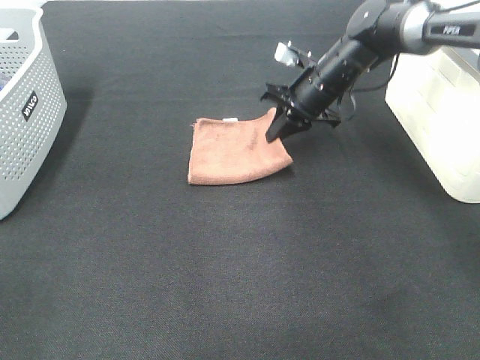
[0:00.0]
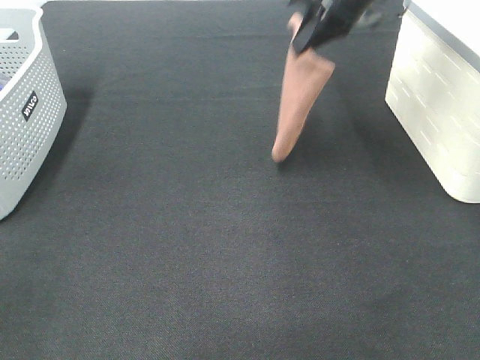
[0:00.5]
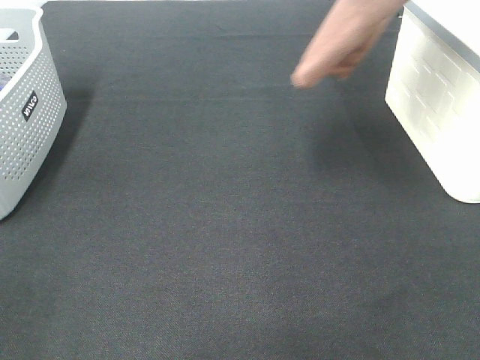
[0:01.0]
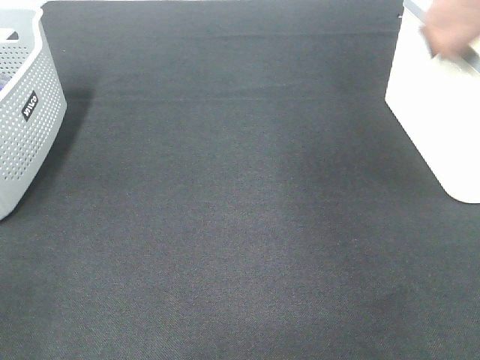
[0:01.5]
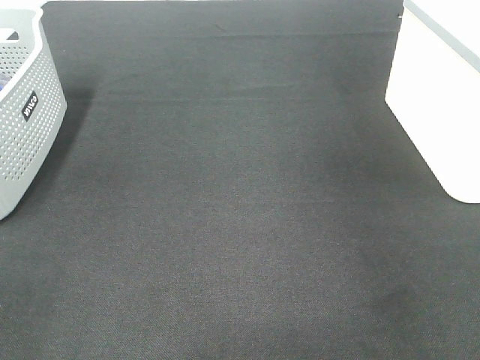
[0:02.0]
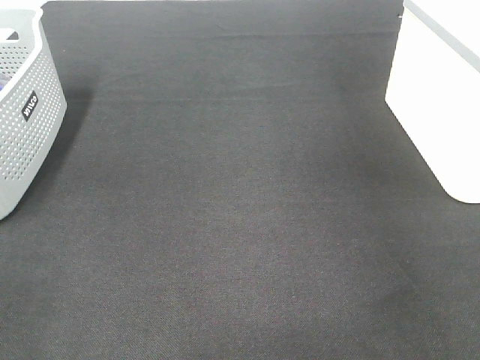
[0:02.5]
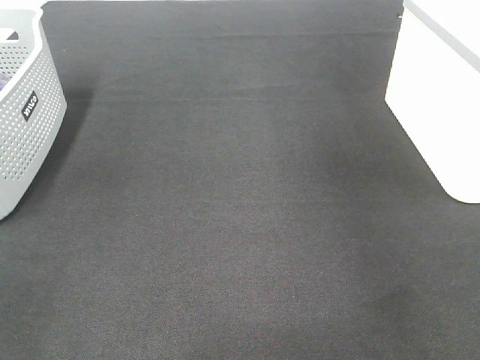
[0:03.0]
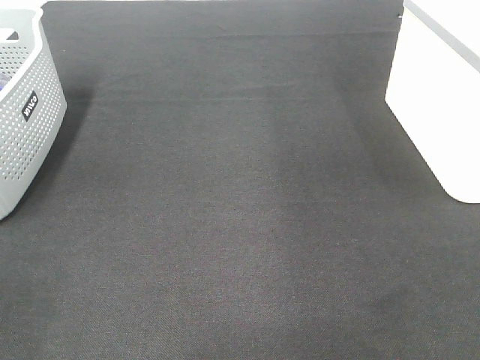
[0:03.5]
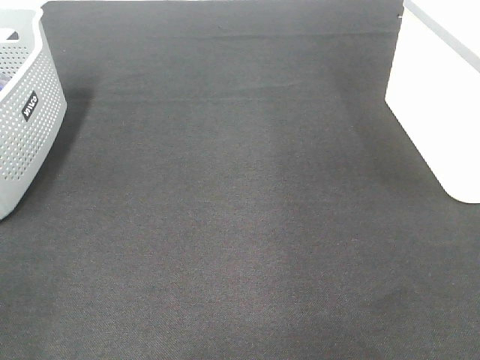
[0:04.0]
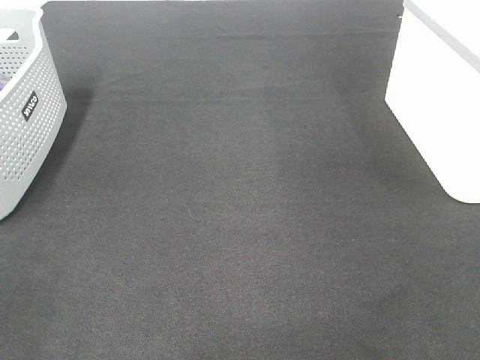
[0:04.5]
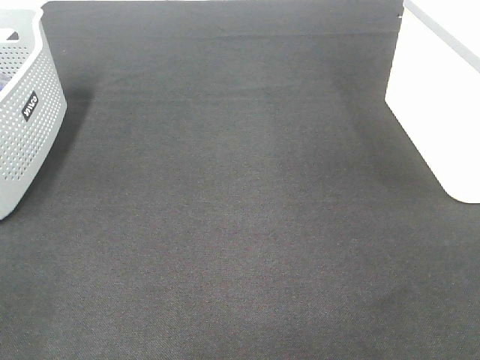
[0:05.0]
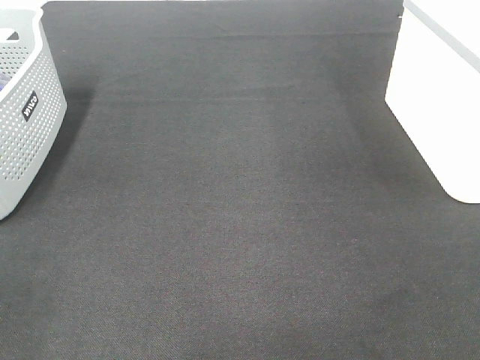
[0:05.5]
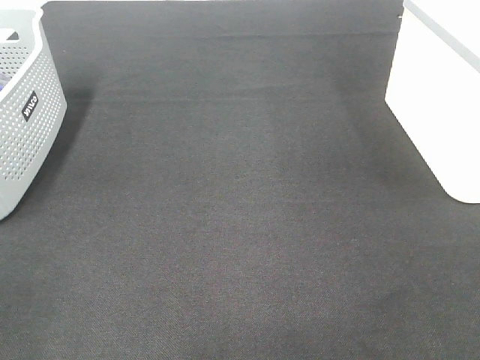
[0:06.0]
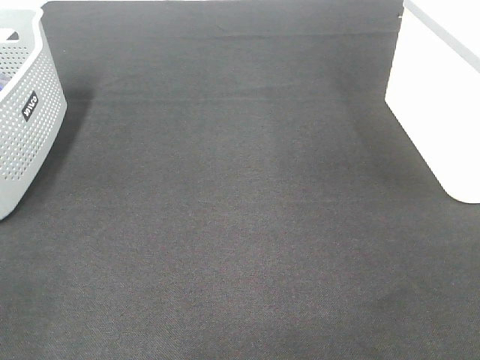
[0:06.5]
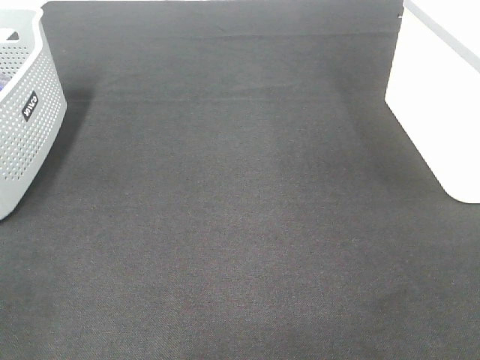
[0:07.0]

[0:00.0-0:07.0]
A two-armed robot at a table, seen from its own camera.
Step, 0:00.5 to 0:02.5: Right hand: place the brown towel in right basket.
0:00.0 to 0:02.0: The right gripper heads upward and to the right, covering approximately 35 cm.
0:05.0 to 0:07.0: Neither gripper changes place.

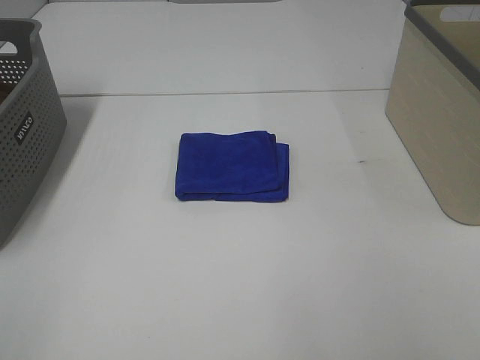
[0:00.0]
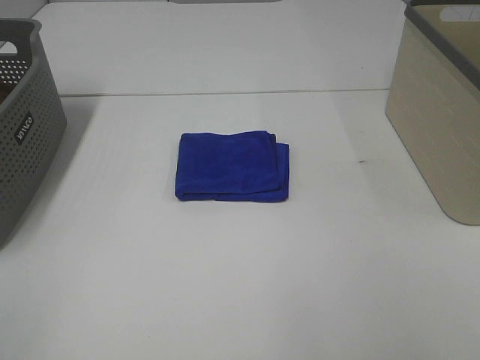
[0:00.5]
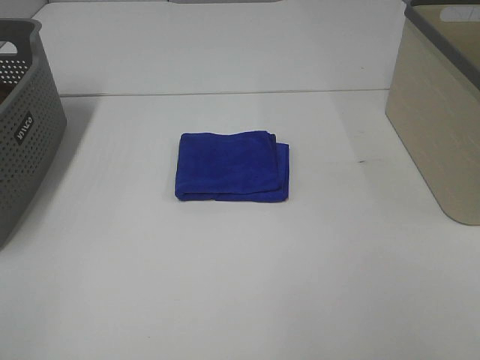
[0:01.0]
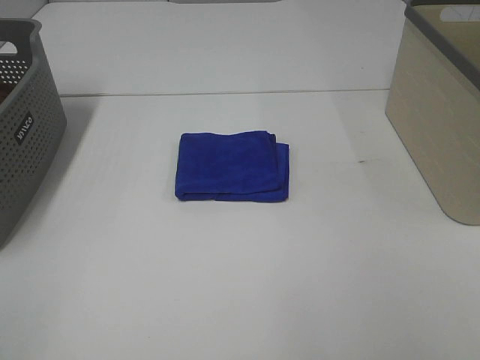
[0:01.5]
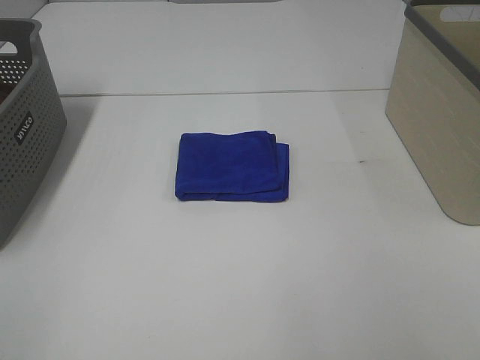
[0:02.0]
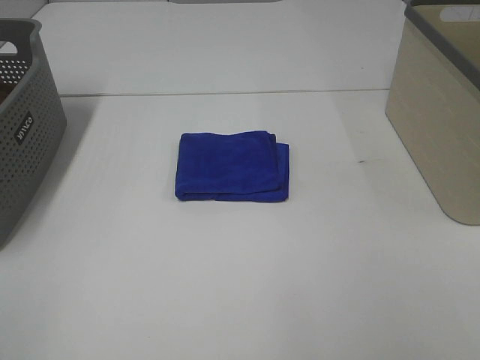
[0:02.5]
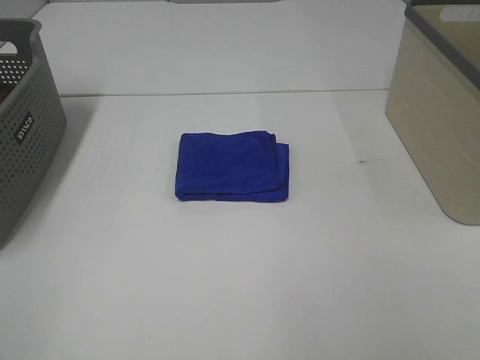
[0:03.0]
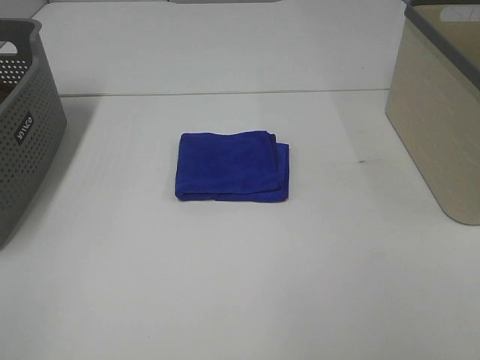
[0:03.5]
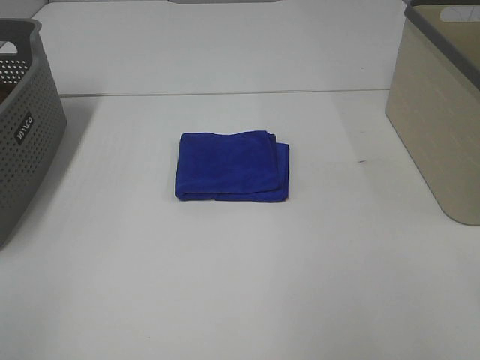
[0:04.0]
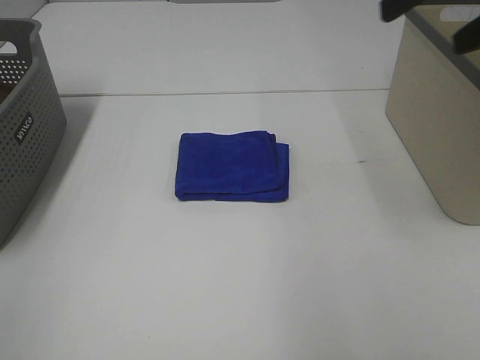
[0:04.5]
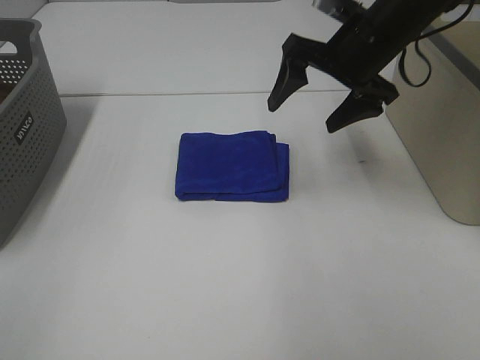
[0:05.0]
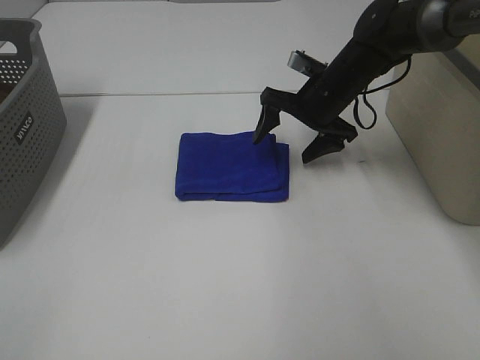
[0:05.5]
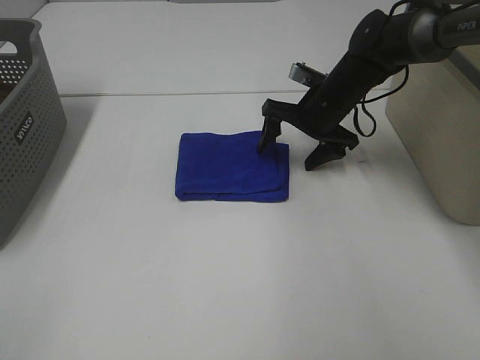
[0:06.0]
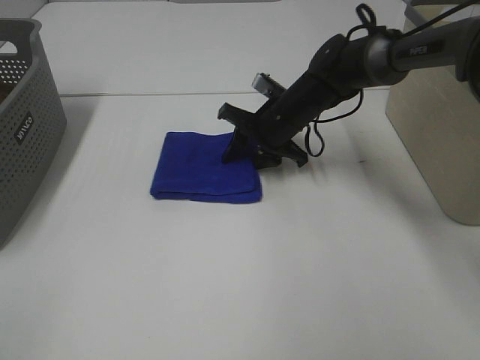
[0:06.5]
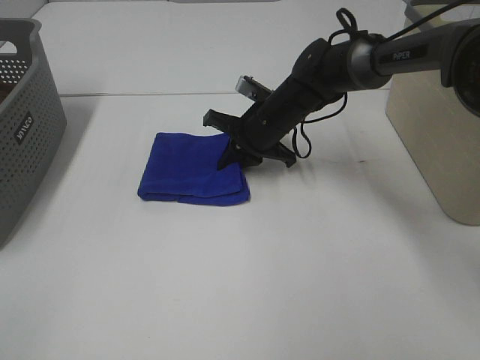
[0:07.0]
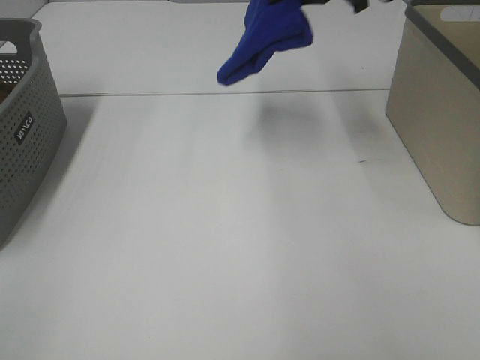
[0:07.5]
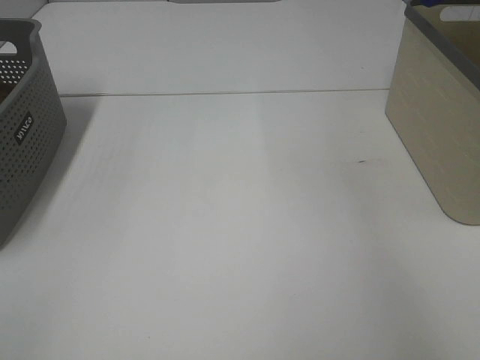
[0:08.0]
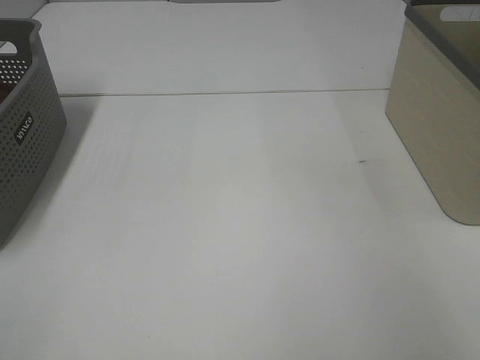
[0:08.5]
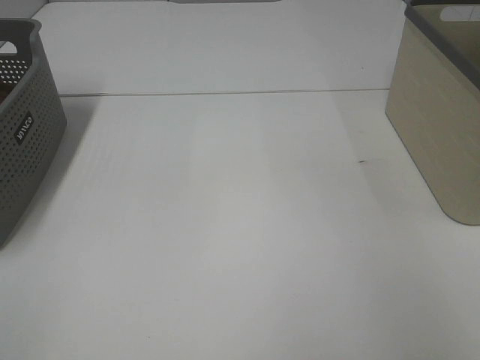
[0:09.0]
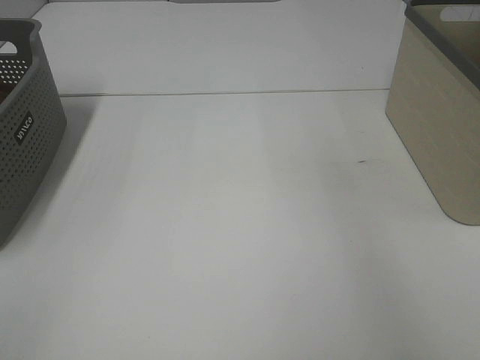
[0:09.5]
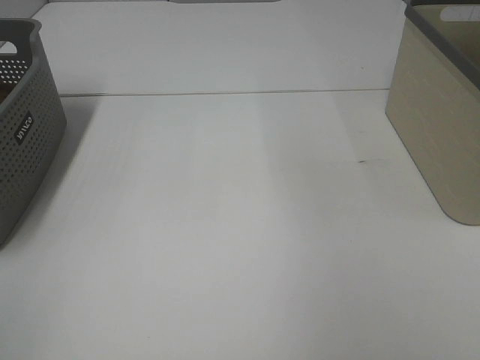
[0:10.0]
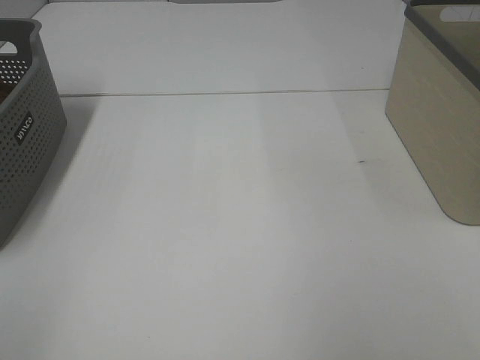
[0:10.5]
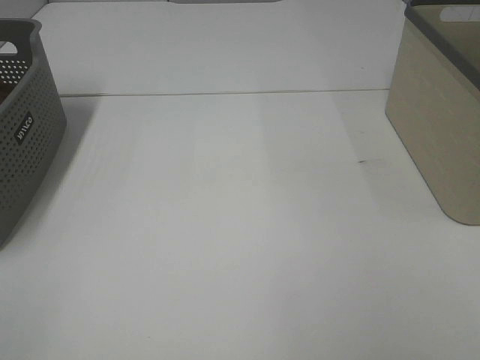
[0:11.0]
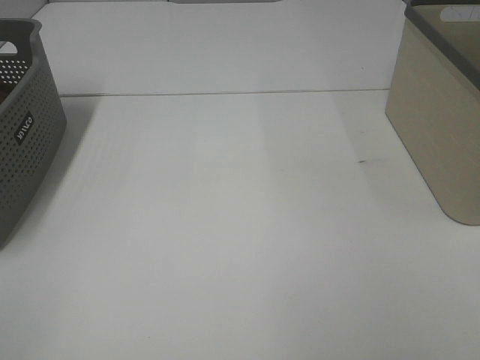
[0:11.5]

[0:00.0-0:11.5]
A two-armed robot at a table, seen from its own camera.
Step, 0:00.0 to 0:06.5: Right hand: grab the folded blue towel.
Step, 0:07.0 to 0:09.0: Right hand: place the blue towel in right basket.
0:04.0 to 0:06.0: The right gripper travels forward, downward and to the left by roughly 50 cm.
0:06.0 to 0:07.5: The right gripper moves upward, some 25 cm, and closes its fingers.
0:07.5 to 0:09.5: The right gripper heads to the right, covering some 20 cm, and opens its fingers.

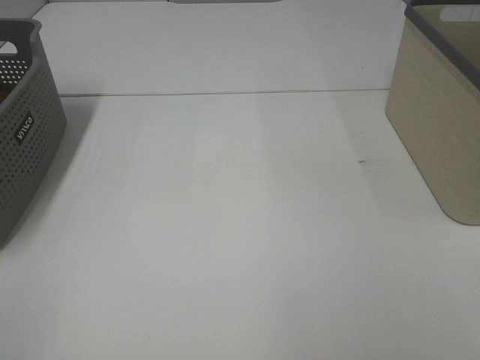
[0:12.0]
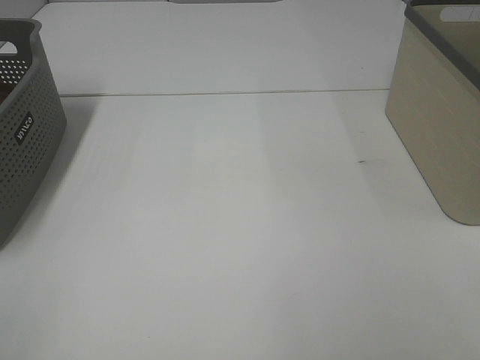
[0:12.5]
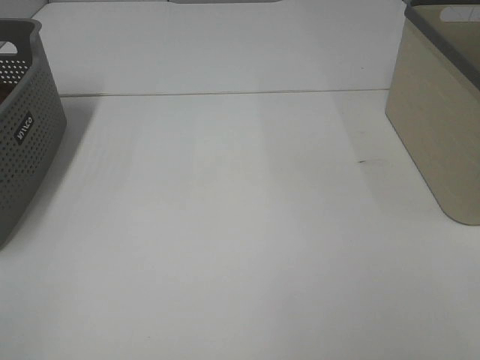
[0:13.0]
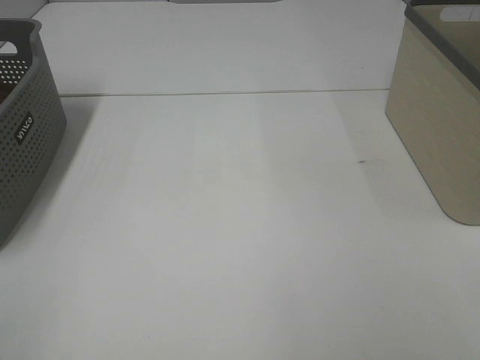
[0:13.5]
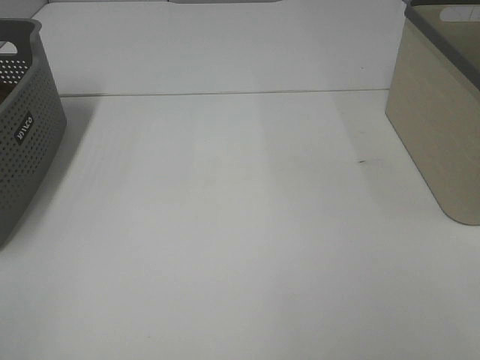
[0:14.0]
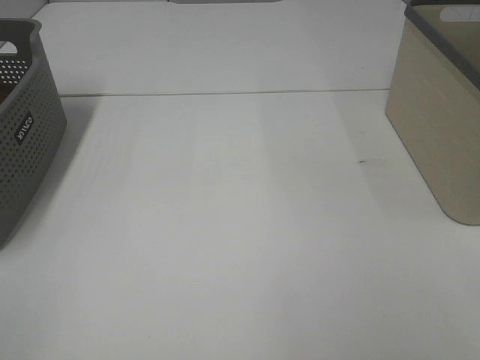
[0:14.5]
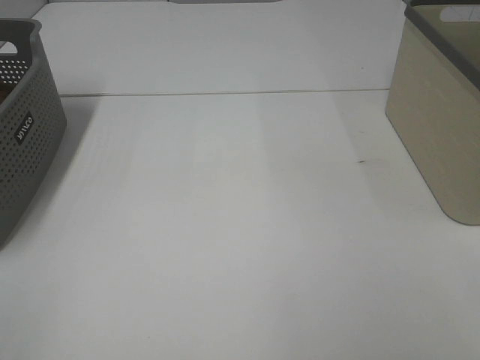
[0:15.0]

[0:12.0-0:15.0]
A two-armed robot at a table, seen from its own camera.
0:12.0 to 0:15.0: The two grippers keep their place.

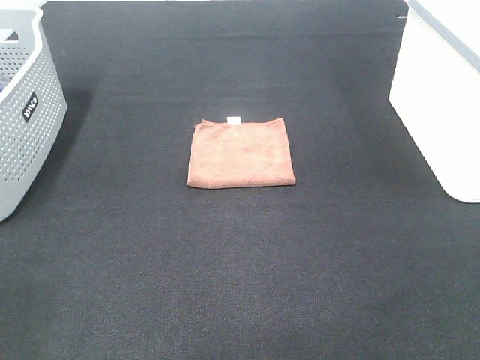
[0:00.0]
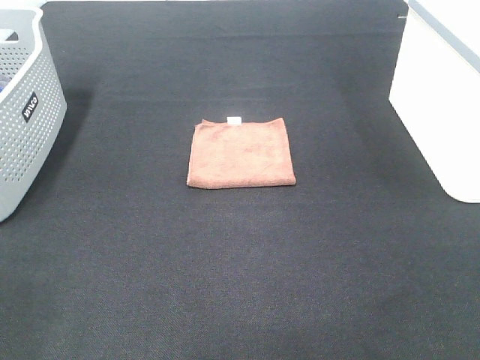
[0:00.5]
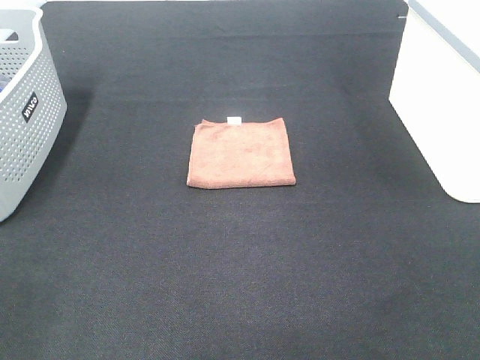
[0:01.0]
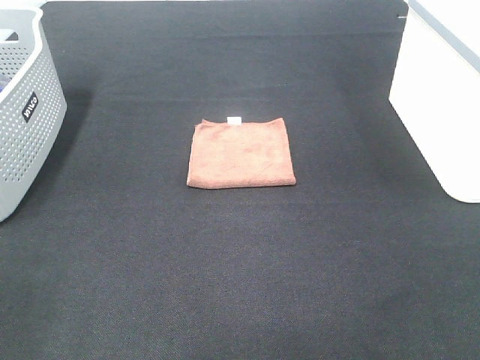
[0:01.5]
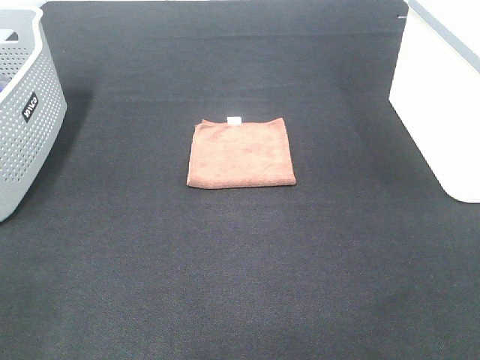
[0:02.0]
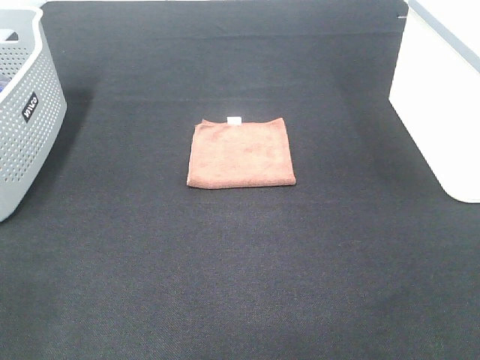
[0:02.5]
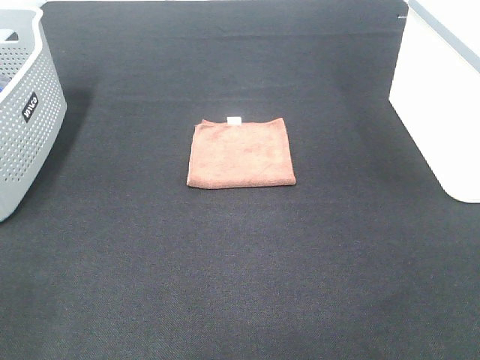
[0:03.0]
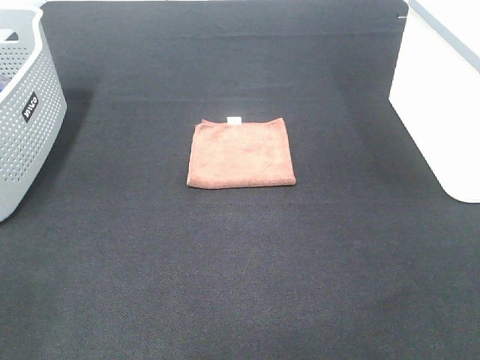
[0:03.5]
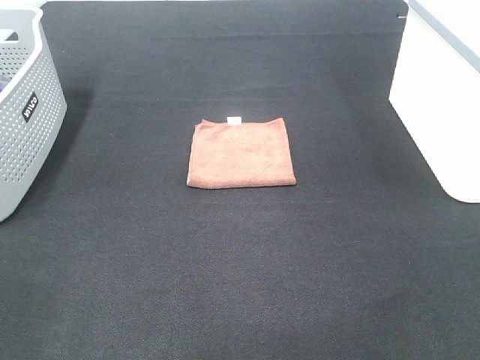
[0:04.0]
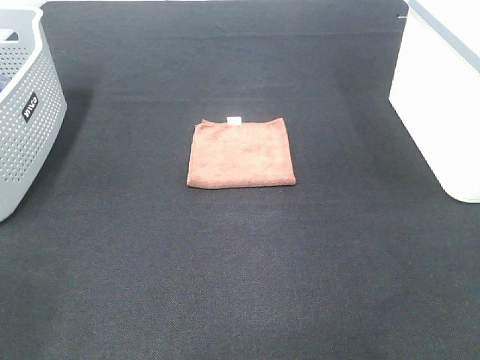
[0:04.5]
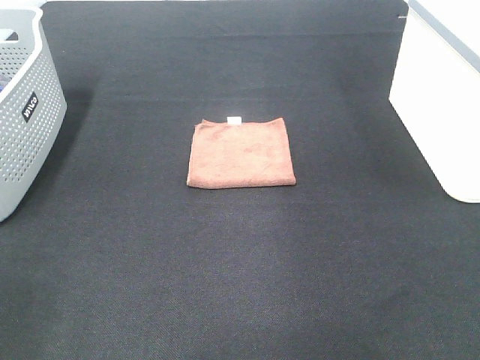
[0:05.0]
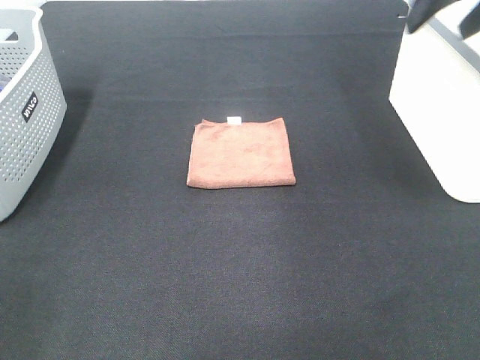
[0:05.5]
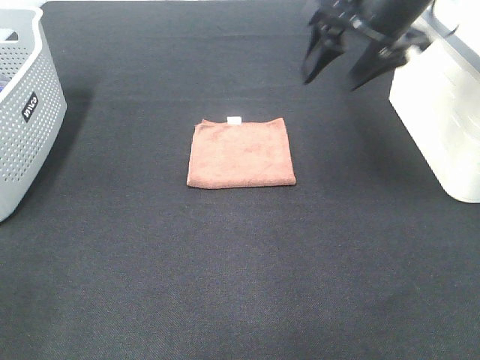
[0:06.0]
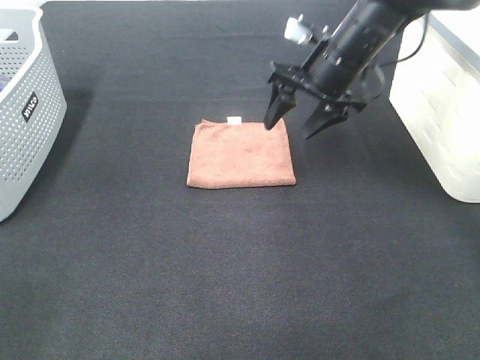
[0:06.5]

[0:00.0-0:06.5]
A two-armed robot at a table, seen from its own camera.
0:00.0 to 0:02.0: Both grippers stay put.
0:04.5 to 0:06.5: The right gripper goes about 35 cm forward, downward and to the left.
